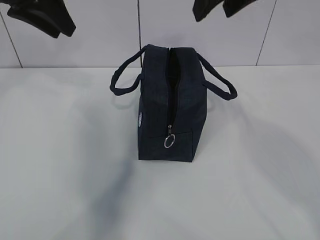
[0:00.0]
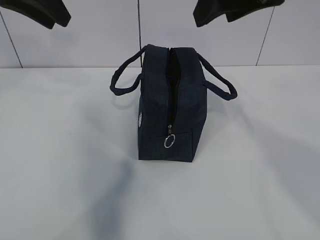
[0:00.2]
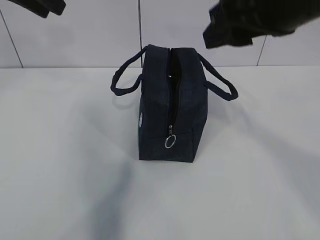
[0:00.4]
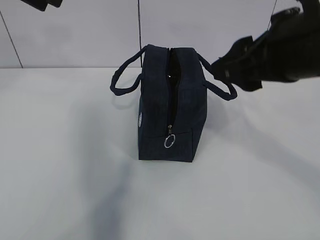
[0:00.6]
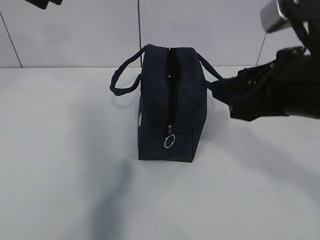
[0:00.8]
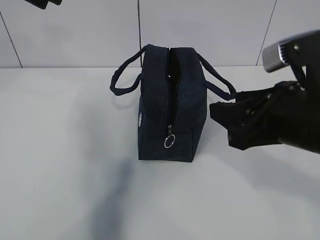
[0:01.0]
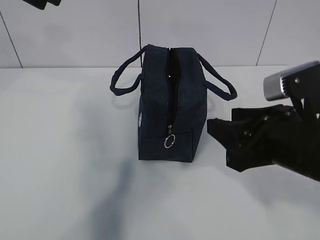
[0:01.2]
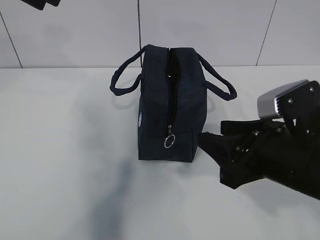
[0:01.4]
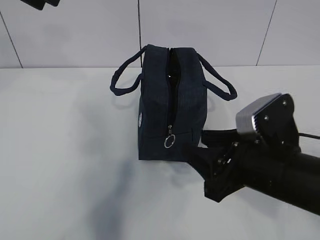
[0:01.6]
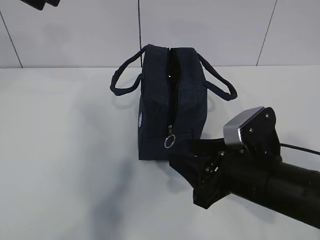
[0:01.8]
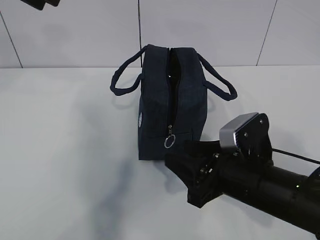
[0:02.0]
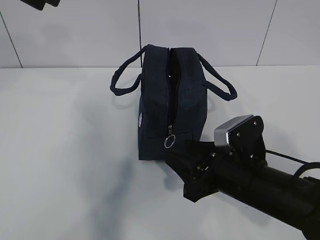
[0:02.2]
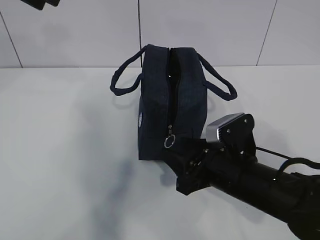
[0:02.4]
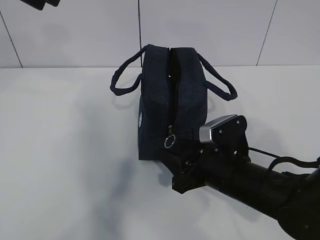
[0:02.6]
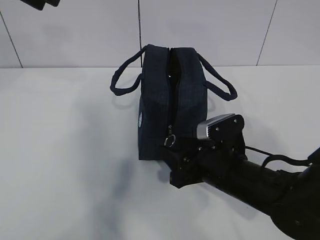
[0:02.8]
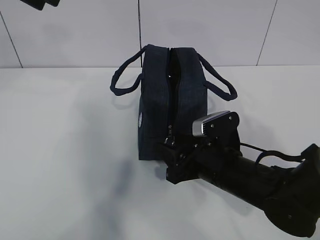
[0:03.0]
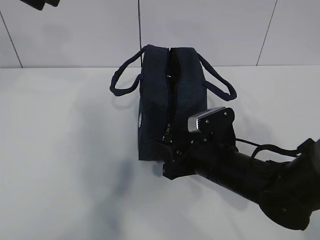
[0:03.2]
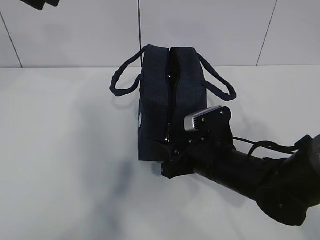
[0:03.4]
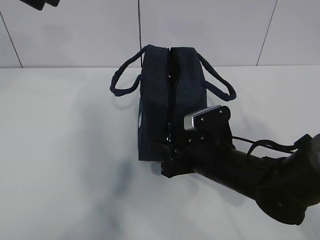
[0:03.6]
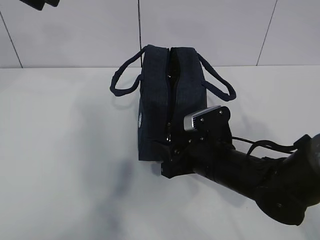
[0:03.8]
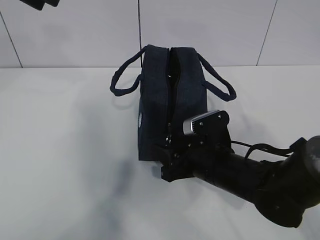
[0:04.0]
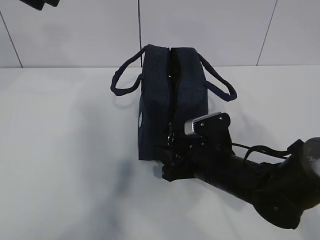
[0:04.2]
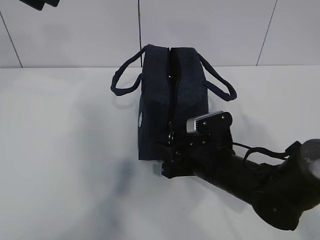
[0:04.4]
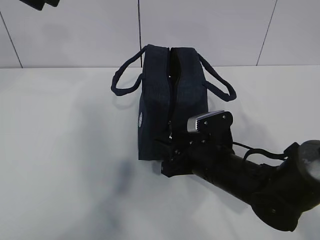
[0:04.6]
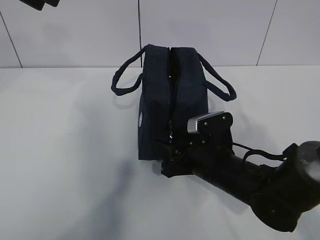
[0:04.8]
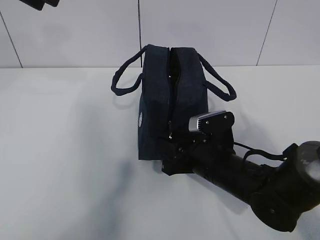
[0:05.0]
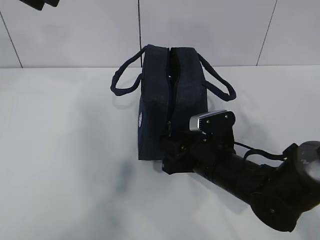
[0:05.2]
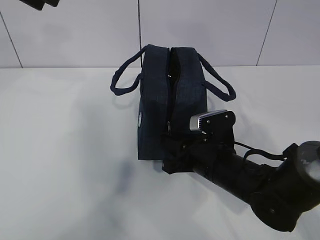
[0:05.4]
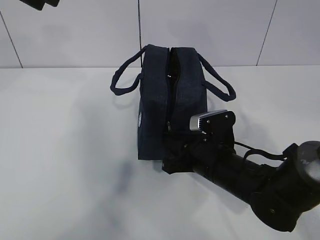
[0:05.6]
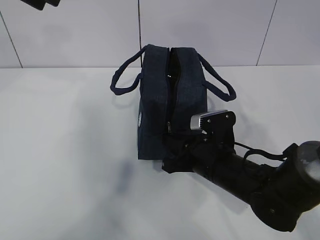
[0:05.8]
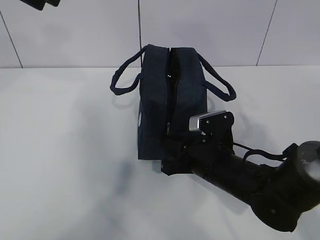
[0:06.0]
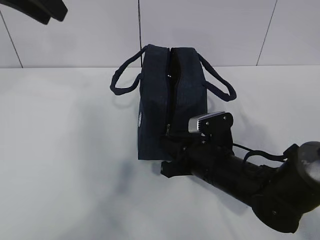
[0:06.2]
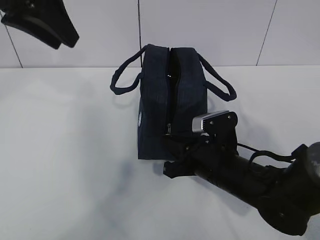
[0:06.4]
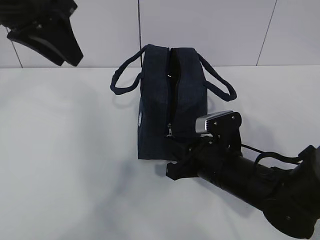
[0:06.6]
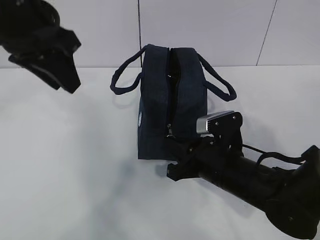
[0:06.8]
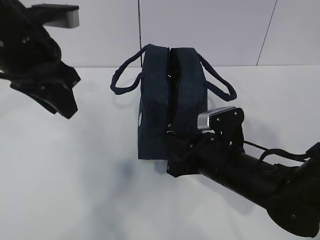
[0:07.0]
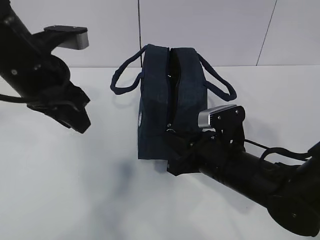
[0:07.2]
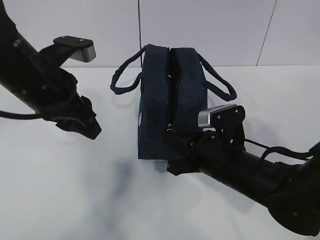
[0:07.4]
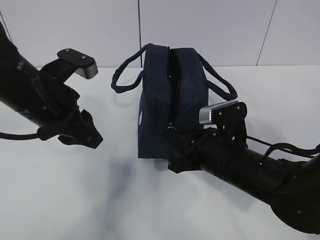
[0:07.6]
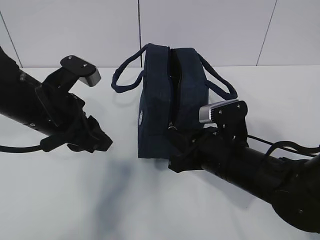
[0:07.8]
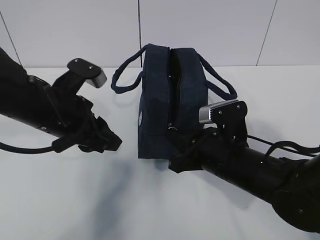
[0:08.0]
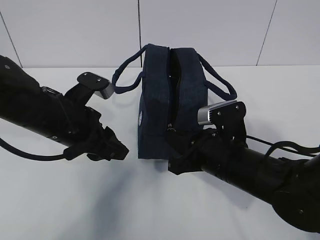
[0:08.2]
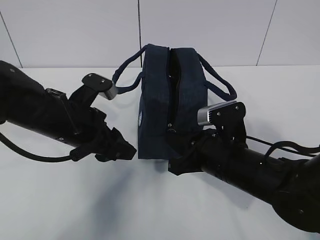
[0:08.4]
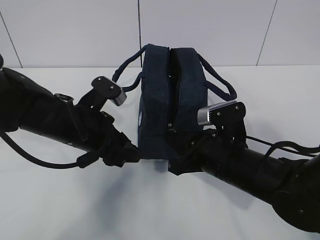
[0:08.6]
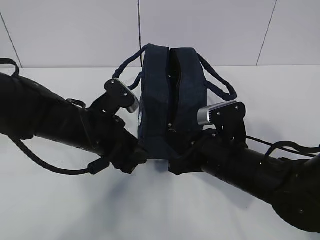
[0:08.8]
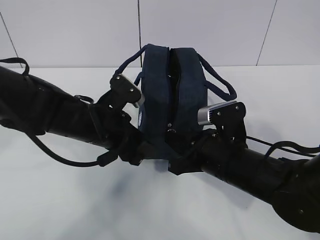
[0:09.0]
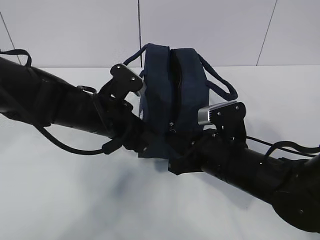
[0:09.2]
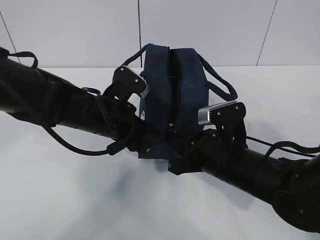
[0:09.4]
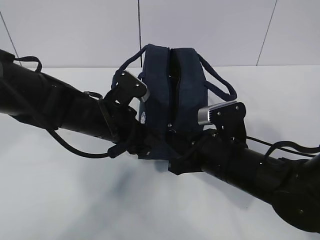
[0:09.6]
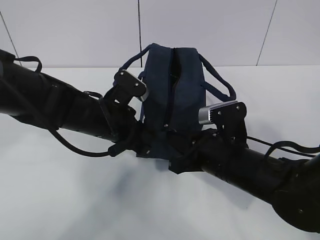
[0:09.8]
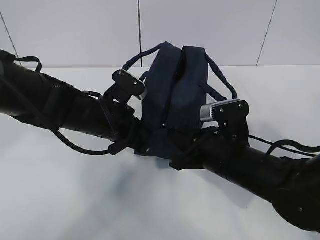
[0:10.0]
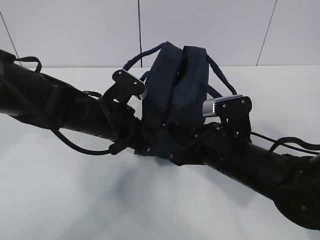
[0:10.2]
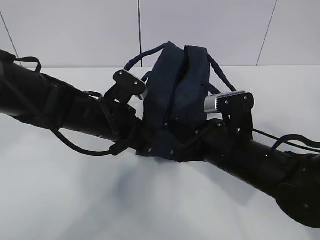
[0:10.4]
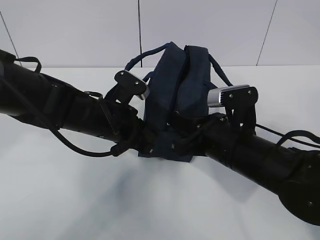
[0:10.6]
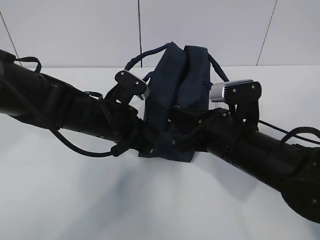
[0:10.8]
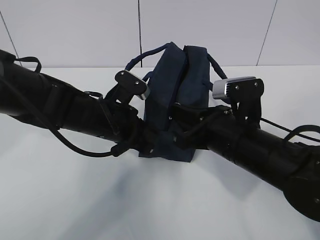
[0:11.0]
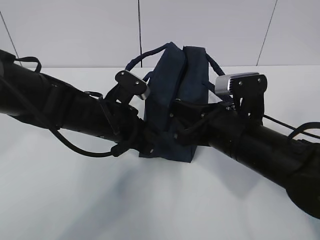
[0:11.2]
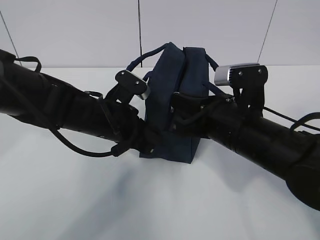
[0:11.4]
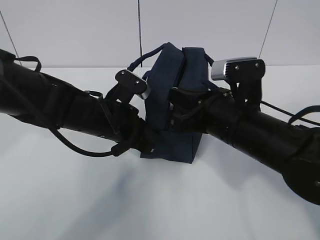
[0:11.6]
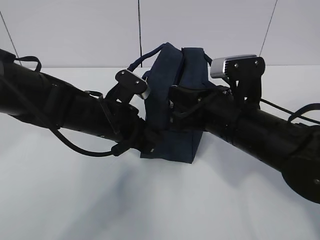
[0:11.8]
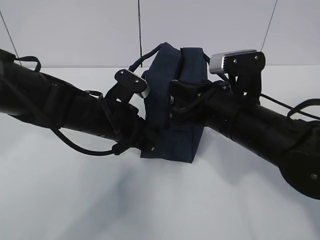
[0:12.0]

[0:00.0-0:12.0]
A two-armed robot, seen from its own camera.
Step, 0:04.8 to 0:11.2: Pull the zipper with your right hand.
0:00.0 to 0:01.6: The right gripper heads downward and backward, covering about 25 cm, while the left gripper changes place by approximately 5 cm.
0:01.6 to 0:03.0: The right gripper goes about 10 cm downward and forward.
0:03.0 to 0:04.4: The grippers make only small movements.
0:04.4 to 0:06.0: The right gripper closes its fingers.
0:06.0 to 0:07.6: The left gripper is displaced downward by approximately 20 cm.
0:07.6 to 0:09.0: The left gripper shifts some 10 cm downward and to the right.
0:09.0 to 0:10.4: The left gripper closes its fingers.
0:10.4 to 0:12.0: The right gripper goes roughly 5 cm upward.

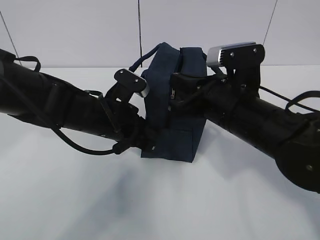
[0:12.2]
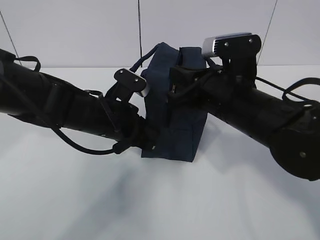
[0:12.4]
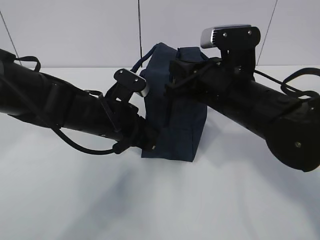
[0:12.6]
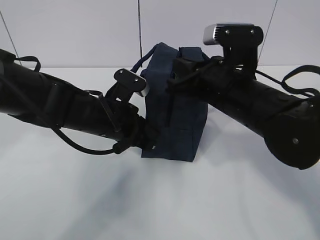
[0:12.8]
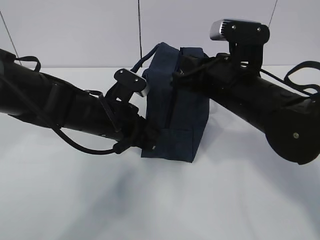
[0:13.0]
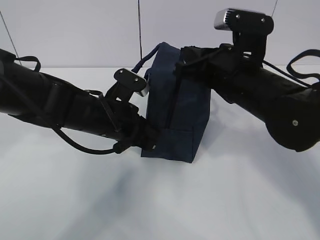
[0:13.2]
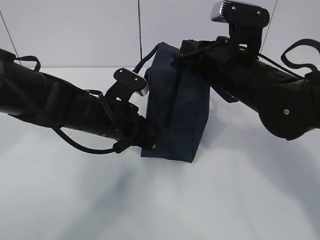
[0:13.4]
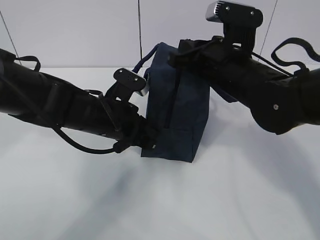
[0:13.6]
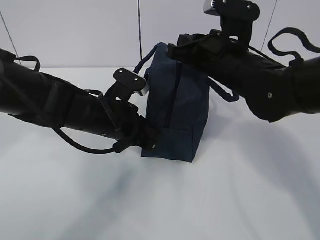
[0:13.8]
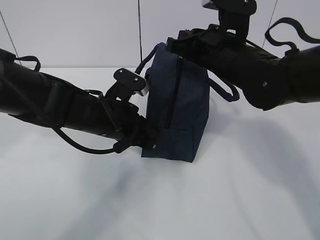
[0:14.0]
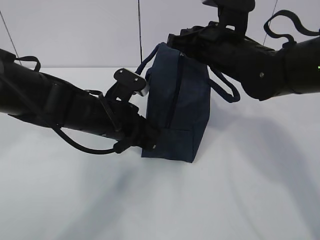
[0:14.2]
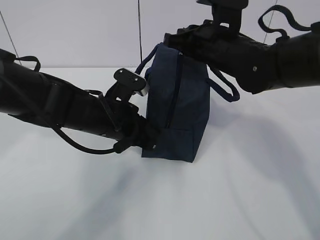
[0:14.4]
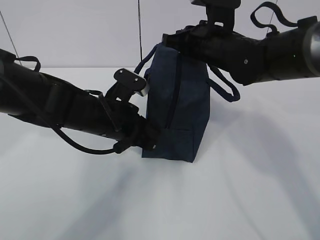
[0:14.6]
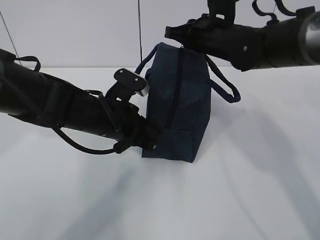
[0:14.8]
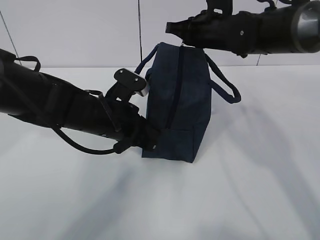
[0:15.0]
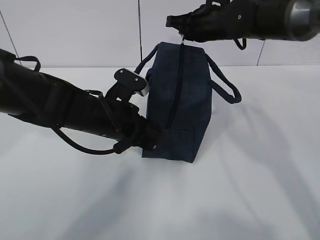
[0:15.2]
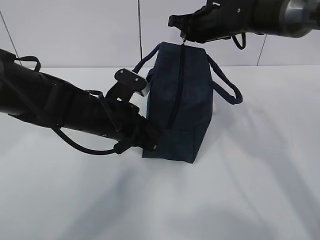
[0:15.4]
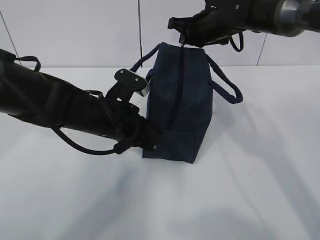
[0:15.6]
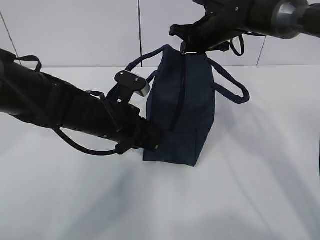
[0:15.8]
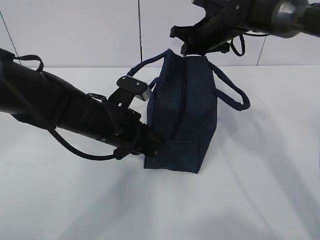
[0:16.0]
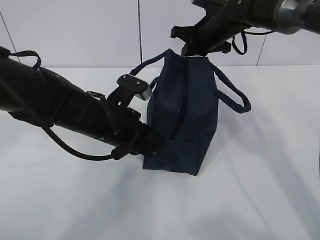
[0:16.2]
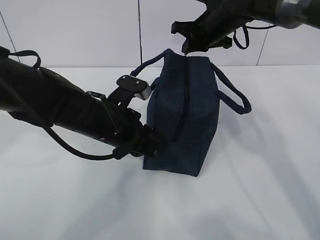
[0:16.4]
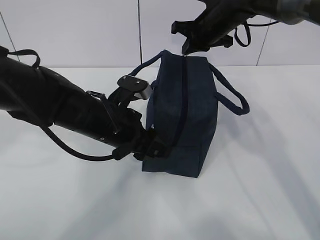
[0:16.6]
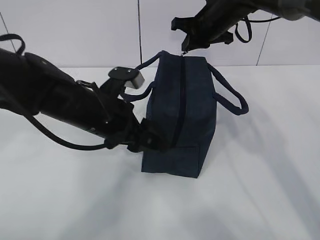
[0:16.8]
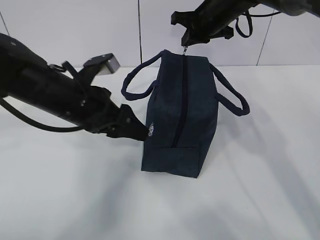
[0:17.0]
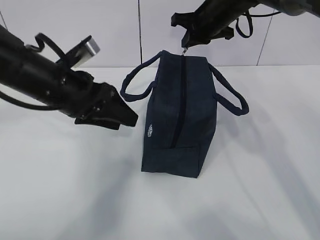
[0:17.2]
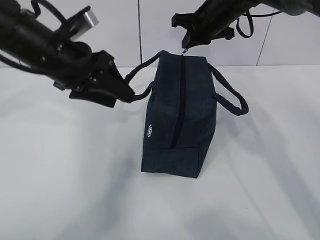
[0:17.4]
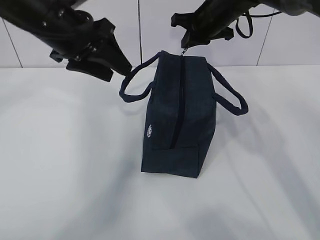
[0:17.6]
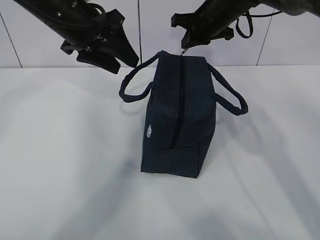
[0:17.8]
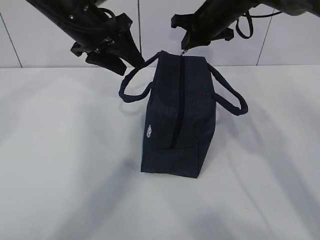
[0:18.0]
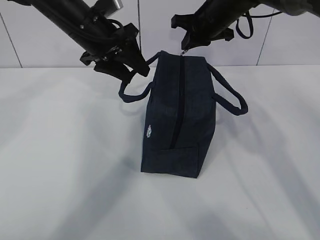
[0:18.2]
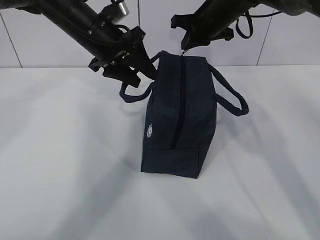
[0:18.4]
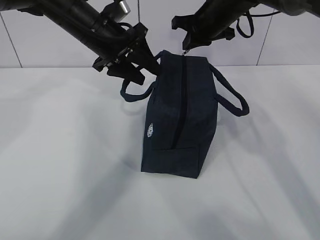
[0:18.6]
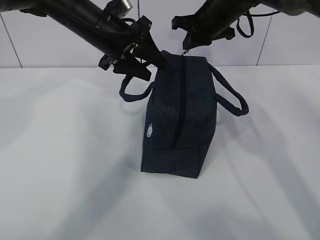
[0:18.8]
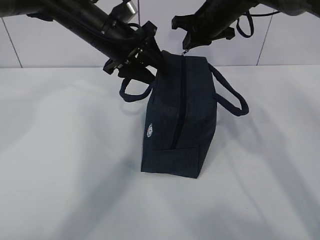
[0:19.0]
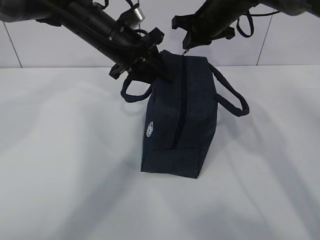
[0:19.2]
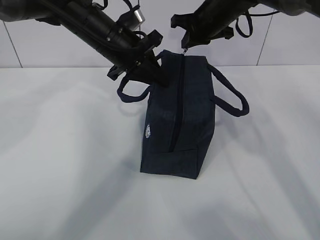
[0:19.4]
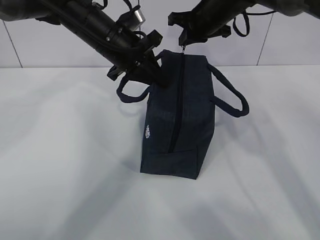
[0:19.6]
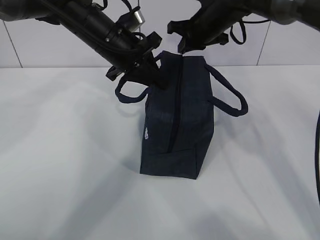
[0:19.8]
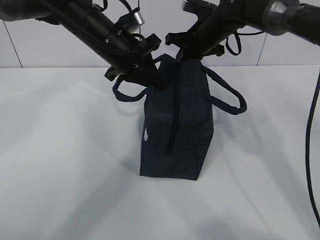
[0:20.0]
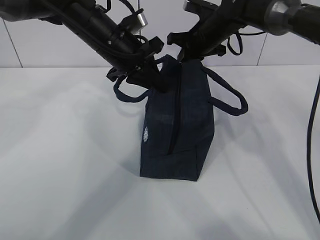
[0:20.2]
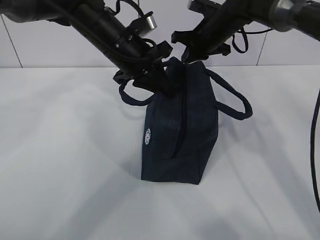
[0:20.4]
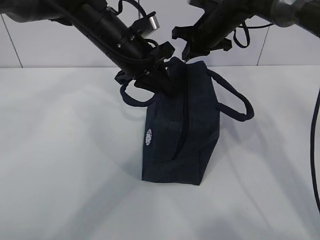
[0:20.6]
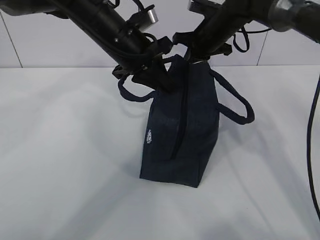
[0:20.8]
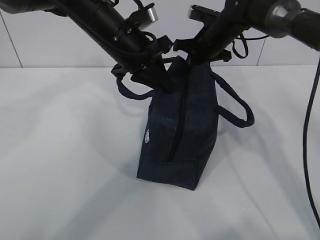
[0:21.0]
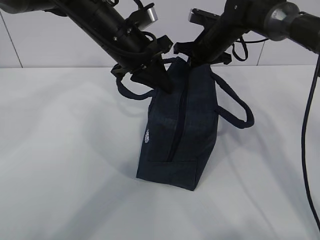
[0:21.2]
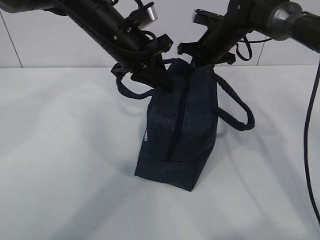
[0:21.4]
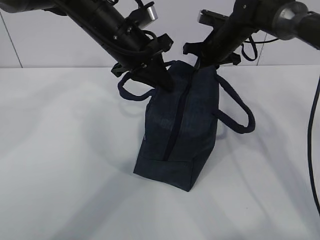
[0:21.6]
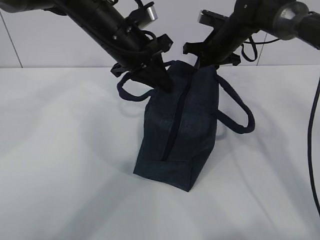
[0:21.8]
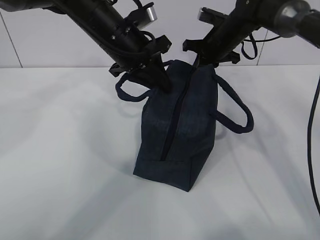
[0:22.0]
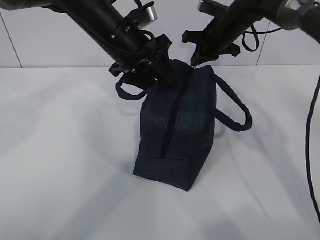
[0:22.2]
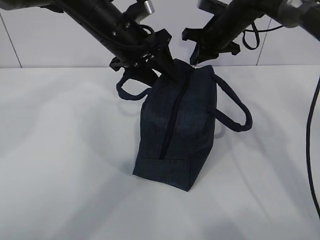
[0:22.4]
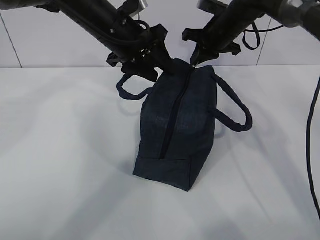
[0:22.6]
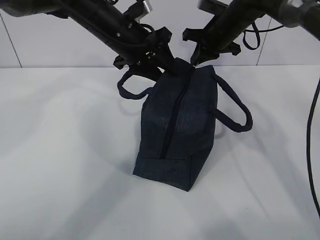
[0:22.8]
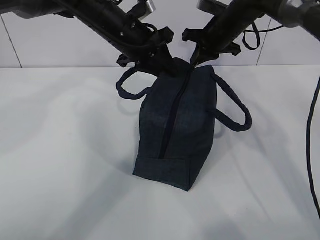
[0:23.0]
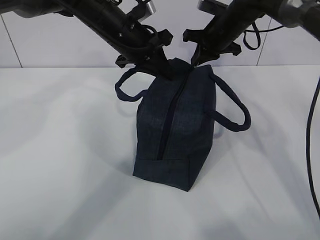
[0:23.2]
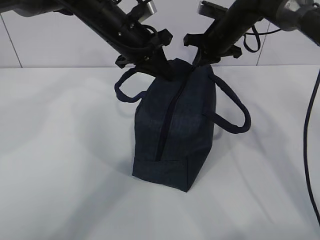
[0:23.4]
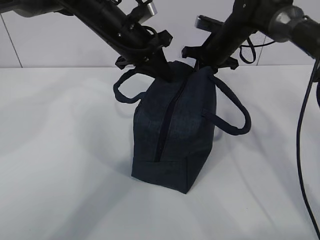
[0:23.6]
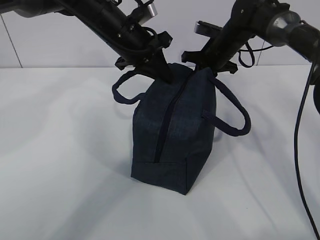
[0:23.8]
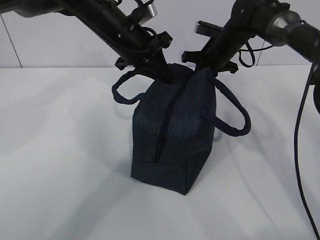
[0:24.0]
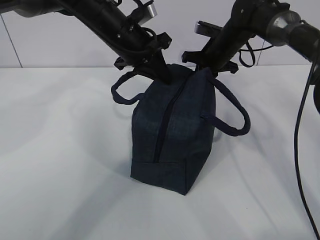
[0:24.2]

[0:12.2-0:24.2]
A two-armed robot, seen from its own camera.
0:12.2 to 0:13.8: The right gripper heads forward, covering approximately 5 cm.
0:13.8 to 0:15.2: The right gripper travels forward by approximately 15 cm.
0:15.2 to 0:16.6: The left gripper opens its fingers.
0:16.6 to 0:18.2: The left gripper travels upward and forward by some 15 cm.
0:18.2 to 0:19.8: The left gripper closes its fingers.
0:19.8 to 0:21.2: The right gripper shifts by about 5 cm.
0:21.2 to 0:22.6: The left gripper opens its fingers.
0:22.6 to 0:24.2: The right gripper shifts by about 5 cm; the left gripper closes its fingers.
